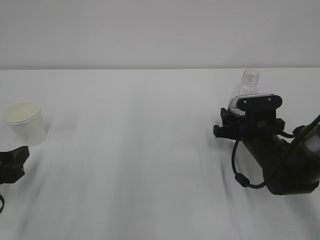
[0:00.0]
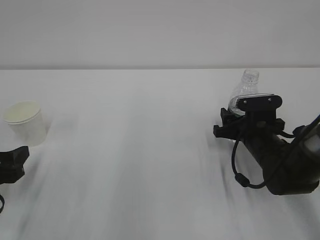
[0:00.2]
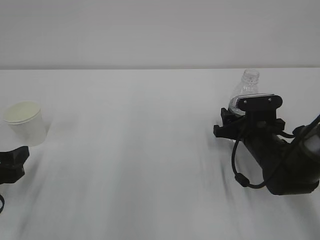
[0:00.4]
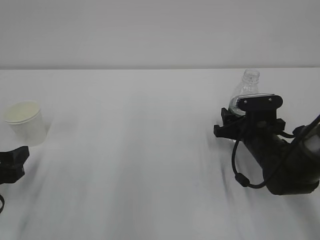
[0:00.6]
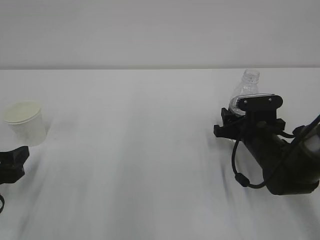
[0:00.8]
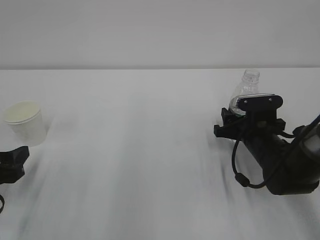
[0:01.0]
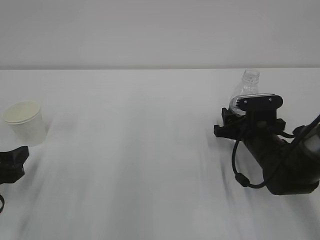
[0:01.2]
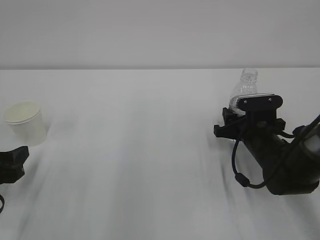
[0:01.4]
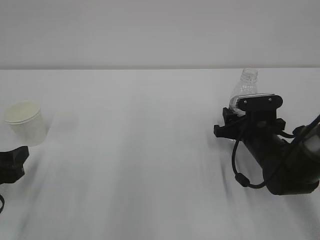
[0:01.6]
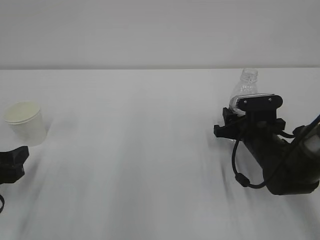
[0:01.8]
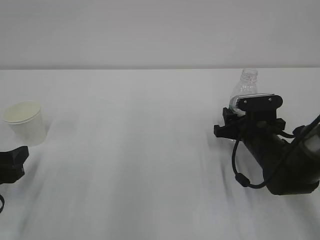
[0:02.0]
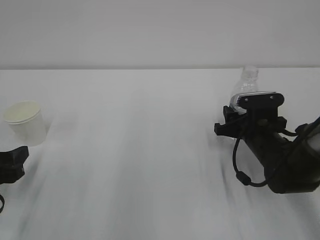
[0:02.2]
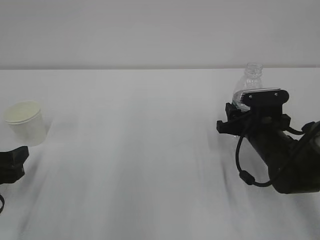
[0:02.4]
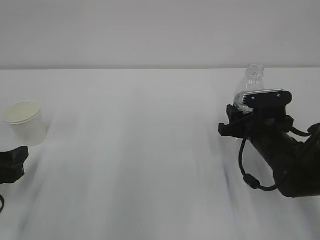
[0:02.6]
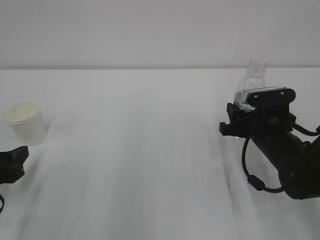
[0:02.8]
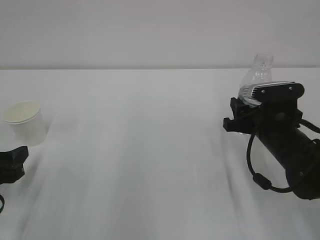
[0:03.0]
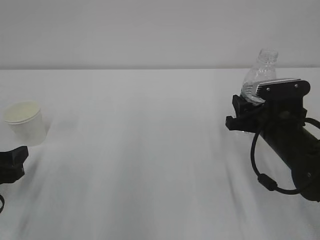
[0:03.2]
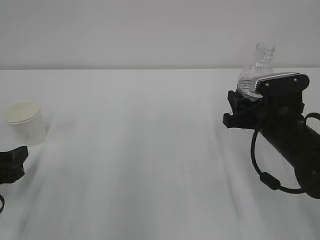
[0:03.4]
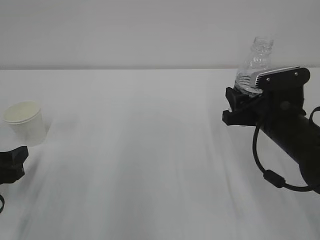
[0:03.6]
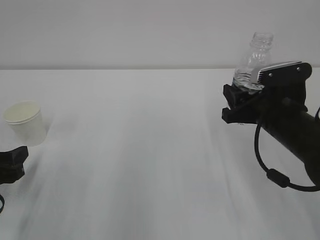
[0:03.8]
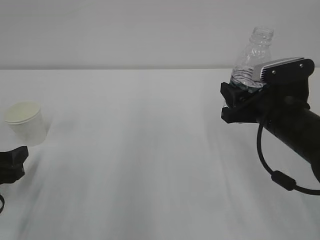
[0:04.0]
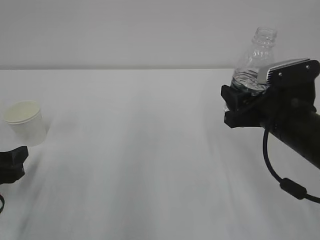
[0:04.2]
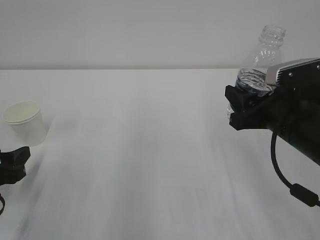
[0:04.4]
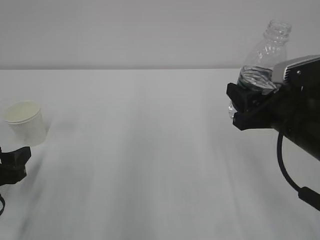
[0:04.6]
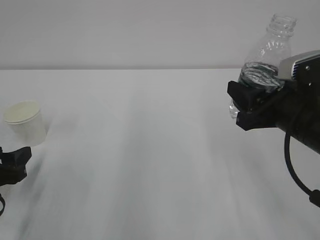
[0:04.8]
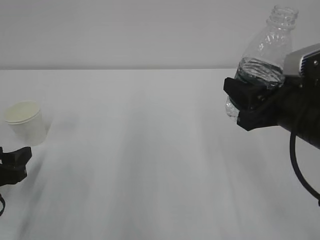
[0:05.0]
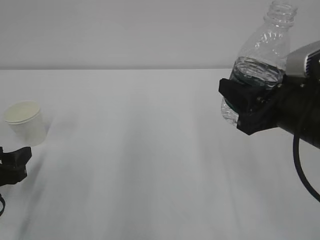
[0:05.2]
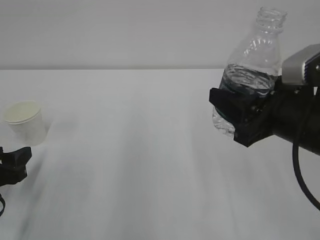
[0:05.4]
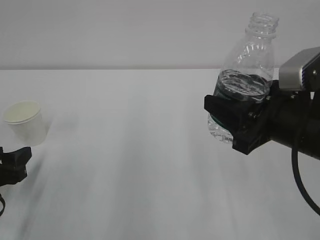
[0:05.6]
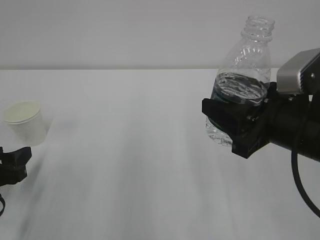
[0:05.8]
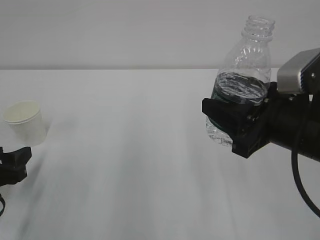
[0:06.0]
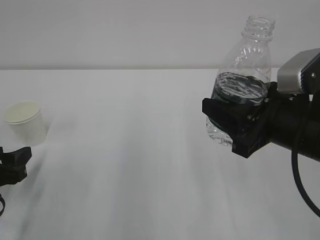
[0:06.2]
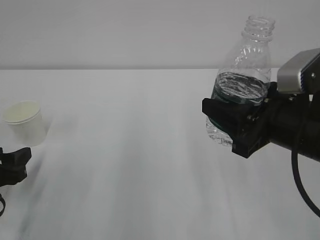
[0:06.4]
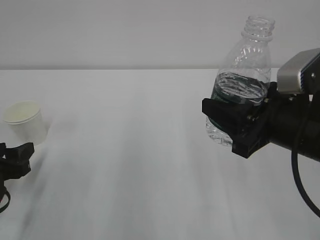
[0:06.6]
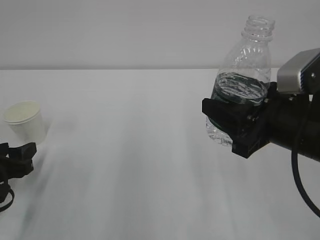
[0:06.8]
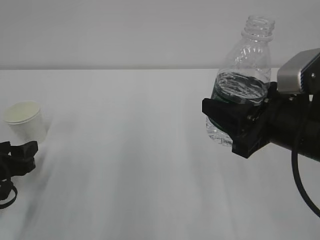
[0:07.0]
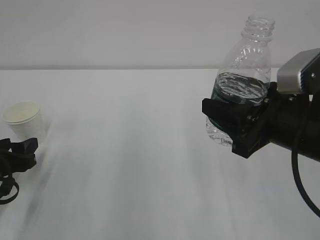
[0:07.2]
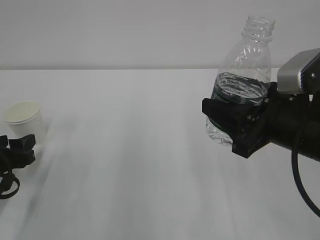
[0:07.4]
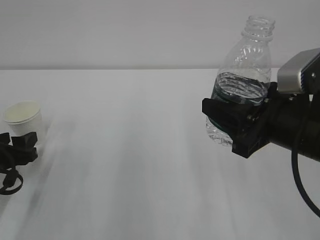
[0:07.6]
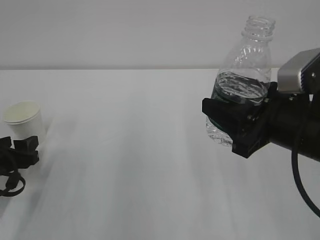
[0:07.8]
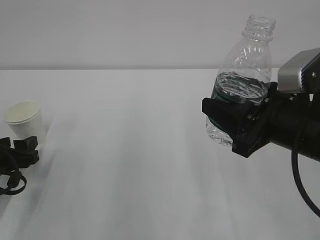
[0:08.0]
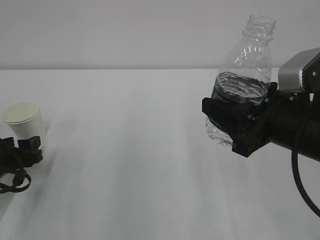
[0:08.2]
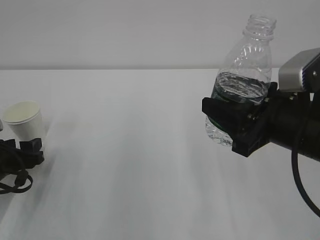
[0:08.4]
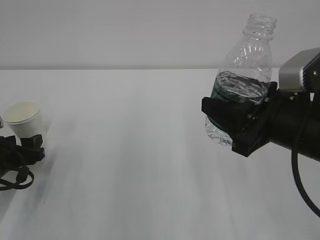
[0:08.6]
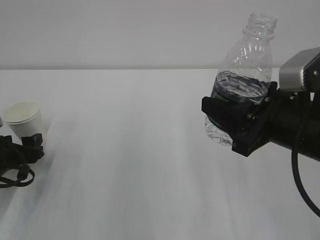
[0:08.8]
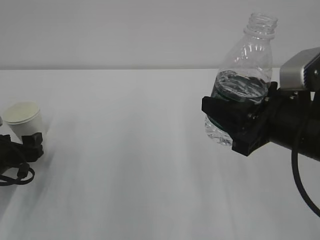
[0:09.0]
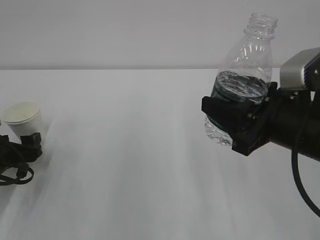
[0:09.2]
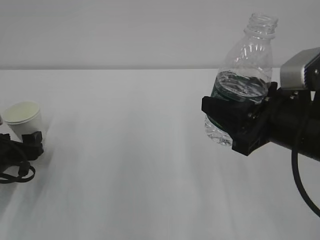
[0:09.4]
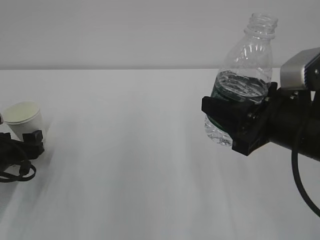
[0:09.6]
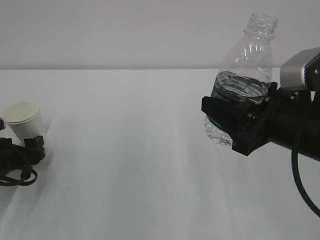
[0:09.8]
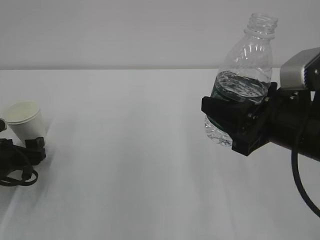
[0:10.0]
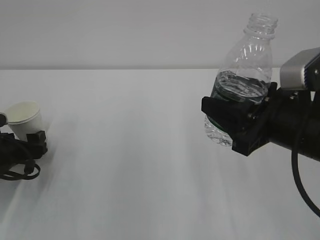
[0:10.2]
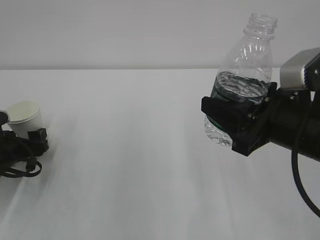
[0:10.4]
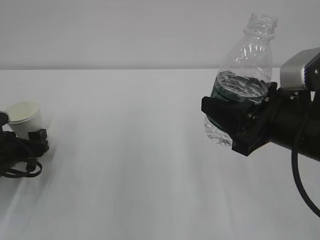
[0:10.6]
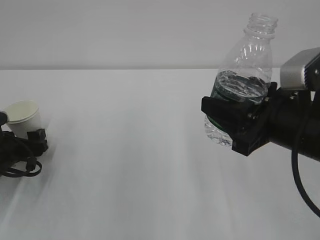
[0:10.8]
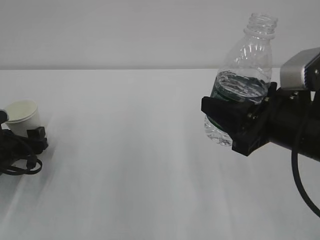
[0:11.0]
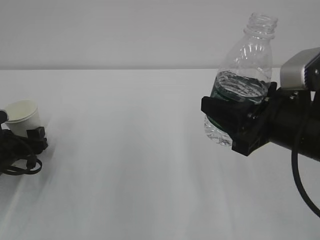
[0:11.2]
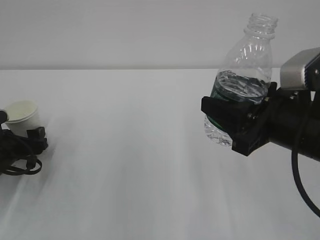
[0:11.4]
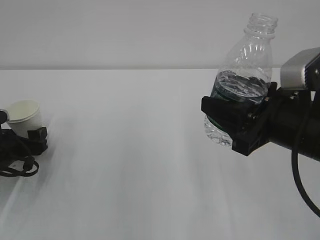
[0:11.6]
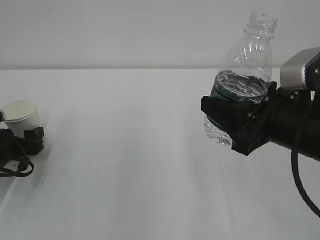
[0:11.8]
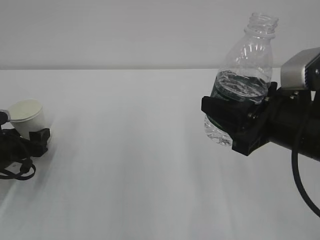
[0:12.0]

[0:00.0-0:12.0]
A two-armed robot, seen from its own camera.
0:00.0 to 0:01.6: Neither gripper changes place.
0:01.6 to 0:03.0: The right gripper changes place by some 5 cm.
0:03.0 to 0:04.4: The right gripper moves upward, roughly 5 cm.
0:04.4 to 0:06.0: The right gripper moves about 5 cm.
0:06.0 to 0:07.6: There are only small adjustments of the grippers.
0:07.6 to 0:09.0: The left gripper opens.
0:09.0 to 0:12.0: There are only small adjustments of the grippers.

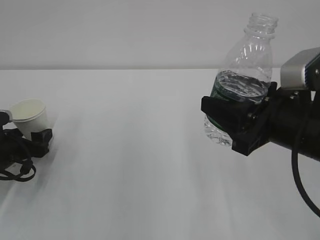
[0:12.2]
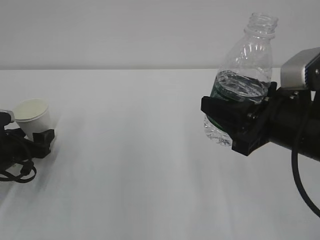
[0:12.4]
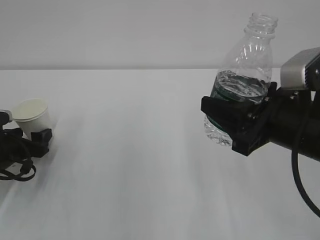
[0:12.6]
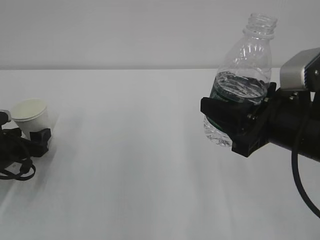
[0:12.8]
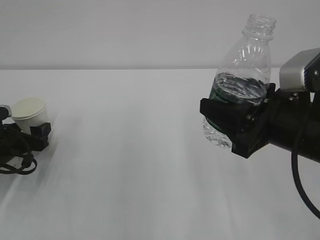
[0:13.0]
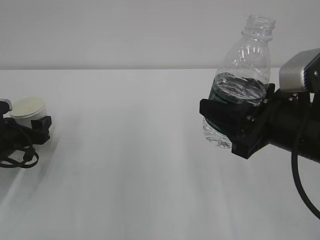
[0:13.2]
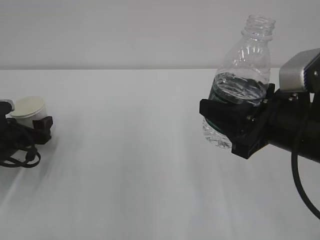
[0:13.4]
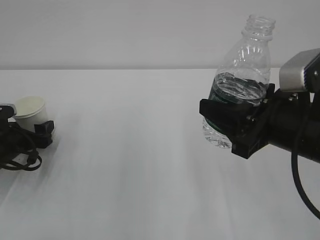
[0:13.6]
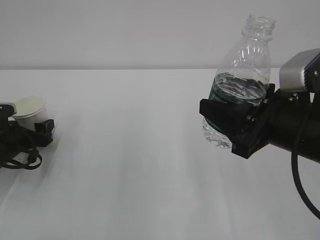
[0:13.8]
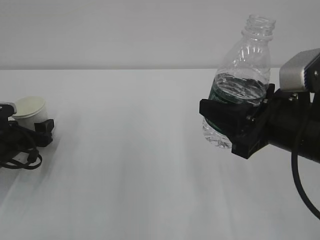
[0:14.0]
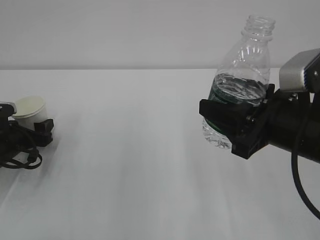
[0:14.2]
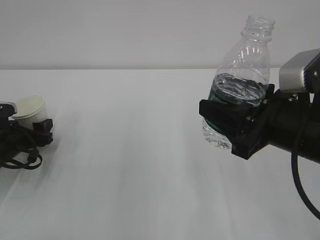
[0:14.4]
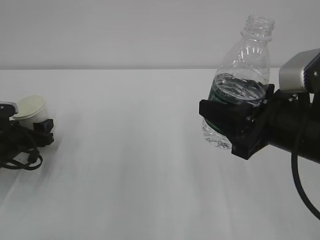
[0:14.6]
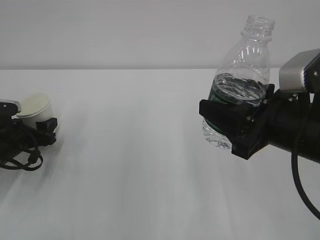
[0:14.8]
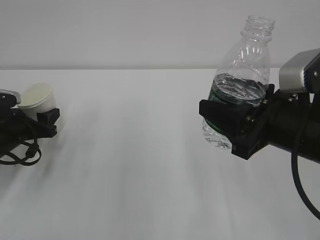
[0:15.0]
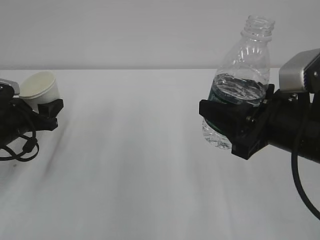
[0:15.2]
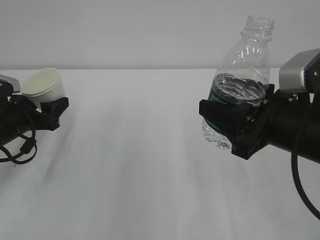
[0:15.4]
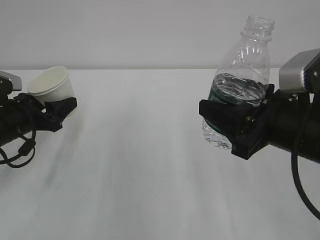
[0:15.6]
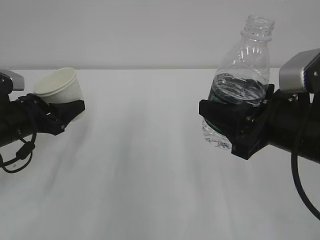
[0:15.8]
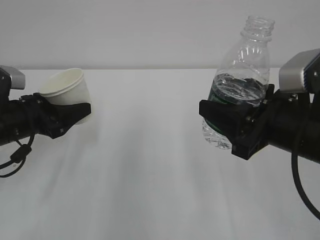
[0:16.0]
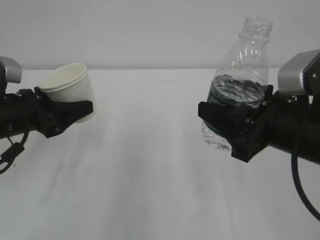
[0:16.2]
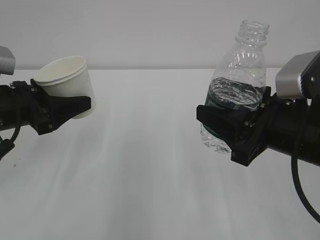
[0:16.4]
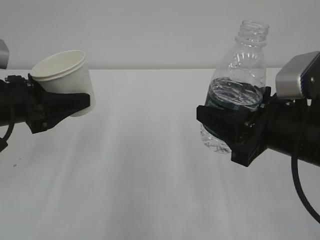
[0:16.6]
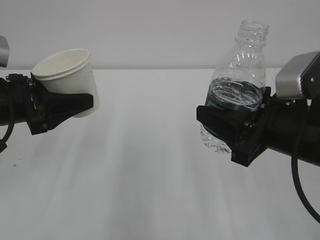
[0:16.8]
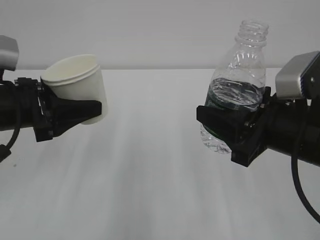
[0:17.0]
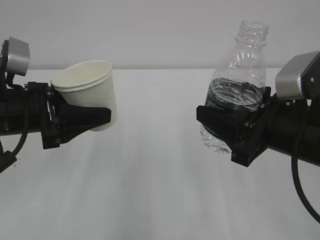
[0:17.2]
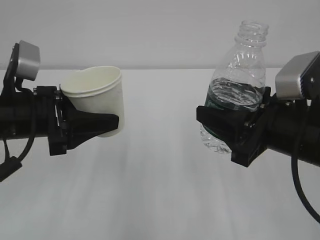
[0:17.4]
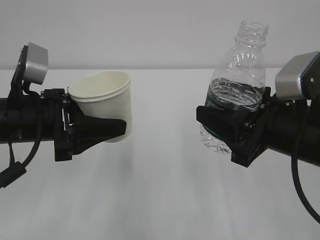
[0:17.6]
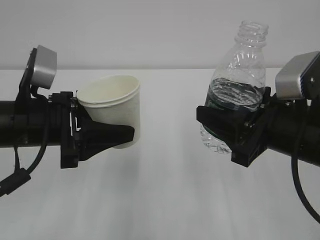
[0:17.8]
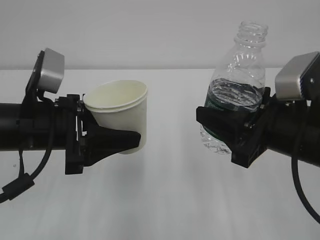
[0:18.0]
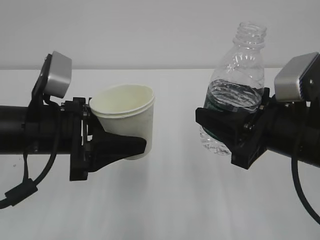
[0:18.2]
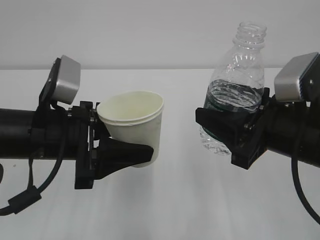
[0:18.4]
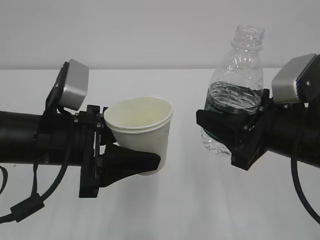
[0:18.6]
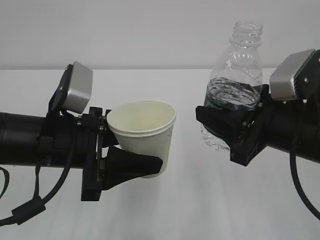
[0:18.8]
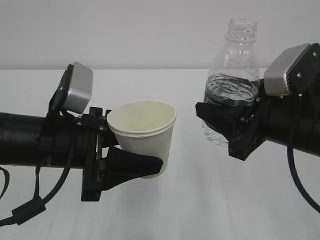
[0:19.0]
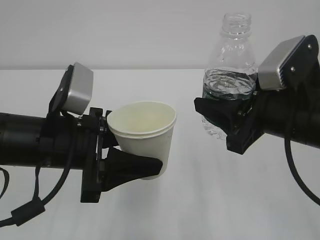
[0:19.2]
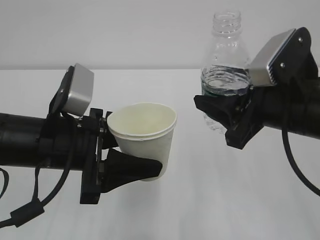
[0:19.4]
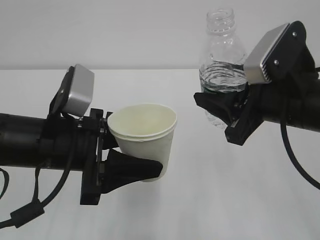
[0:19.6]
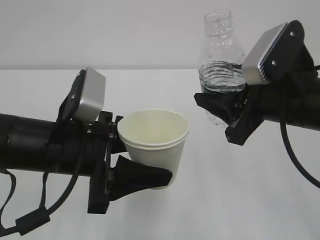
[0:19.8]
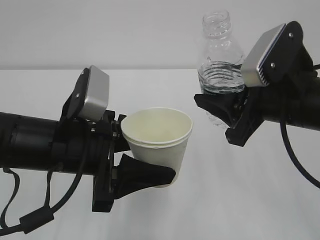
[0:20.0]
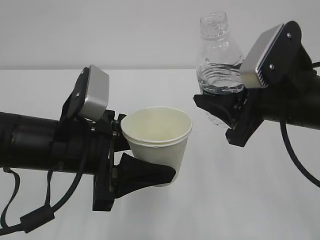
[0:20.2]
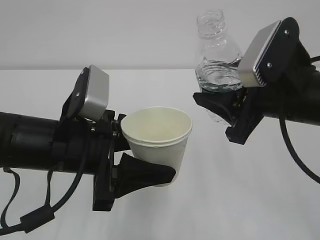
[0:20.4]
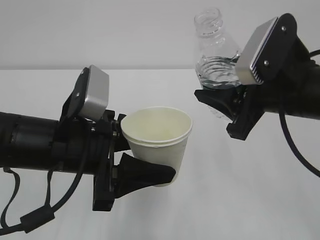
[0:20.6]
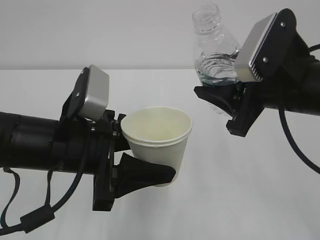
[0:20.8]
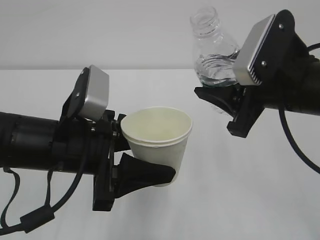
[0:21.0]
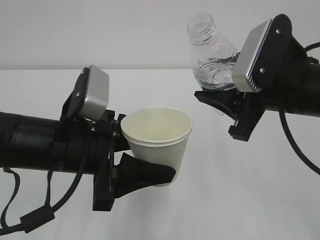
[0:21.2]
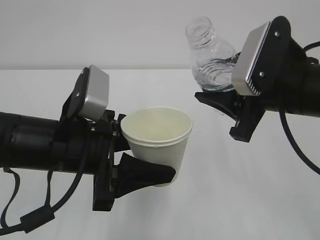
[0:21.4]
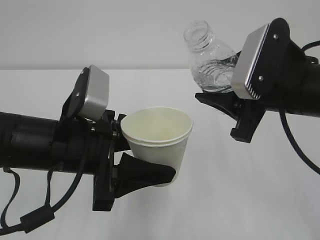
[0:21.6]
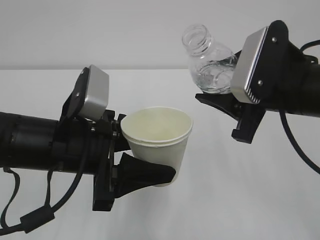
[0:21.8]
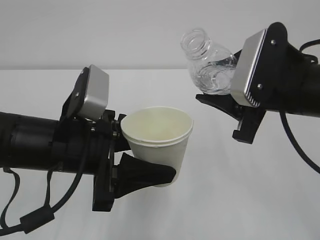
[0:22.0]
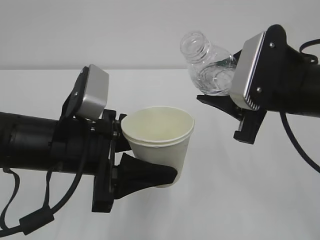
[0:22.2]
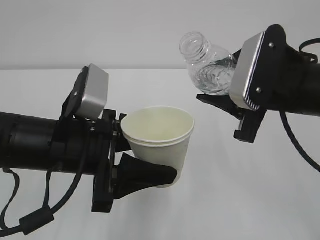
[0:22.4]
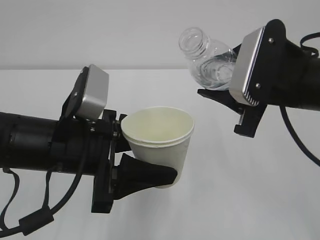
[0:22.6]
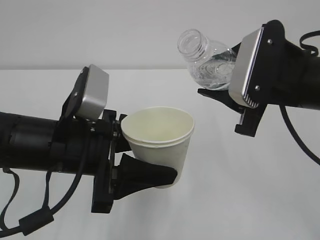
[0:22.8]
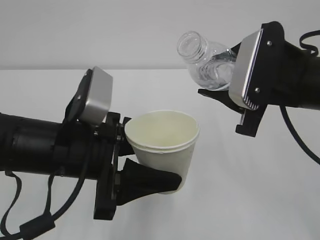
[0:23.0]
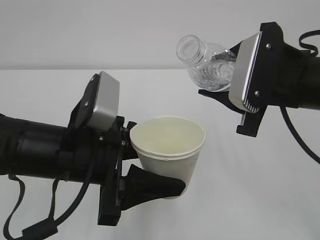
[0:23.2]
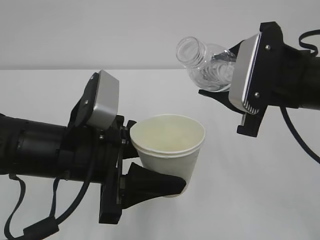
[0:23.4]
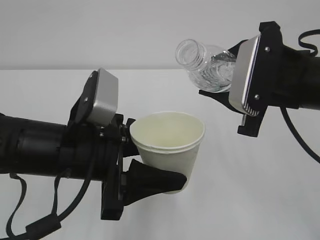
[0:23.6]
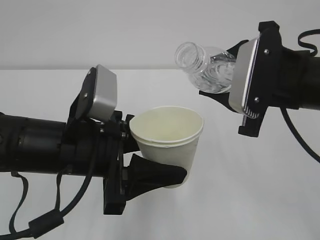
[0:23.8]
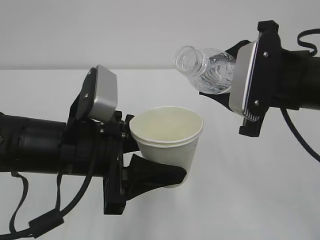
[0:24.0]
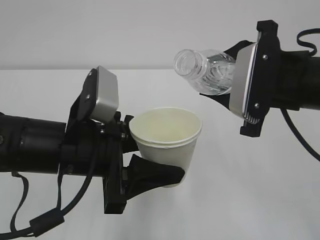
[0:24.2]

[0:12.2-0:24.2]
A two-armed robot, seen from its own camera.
0:12.2 to 0:13.8: The grippers move only a little.
0:13.8 to 0:15.2: The left gripper moves approximately 5 cm, and closes up.
0:15.2 to 0:16.6: The left gripper goes roughly 10 cm upward and backward.
0:16.6 to 0:18.2: The left gripper heads to the right, covering approximately 10 cm.
0:19.8 to 0:21.2: The grippers make only small movements.
0:21.2 to 0:22.6: The grippers move only a little.
0:22.6 to 0:24.2: There are only small adjustments of the grippers.
